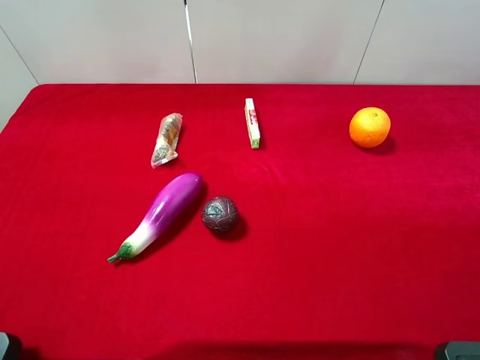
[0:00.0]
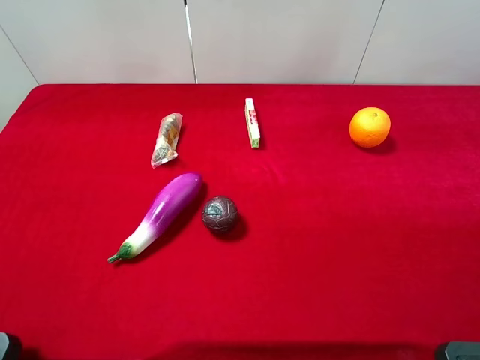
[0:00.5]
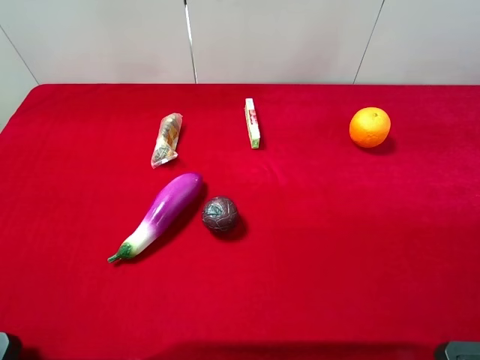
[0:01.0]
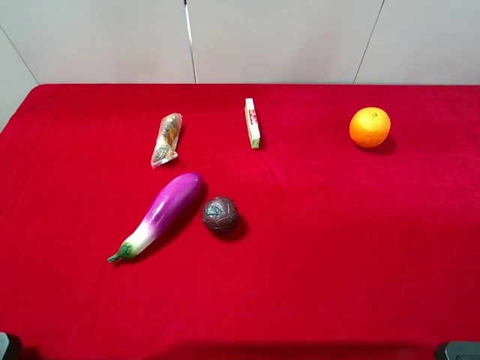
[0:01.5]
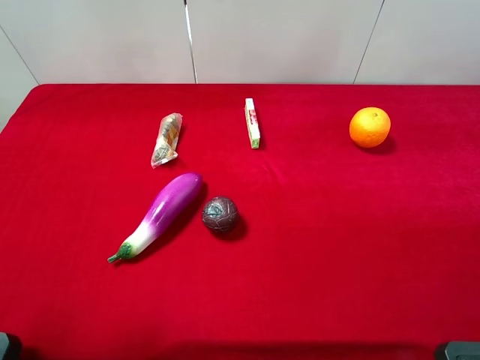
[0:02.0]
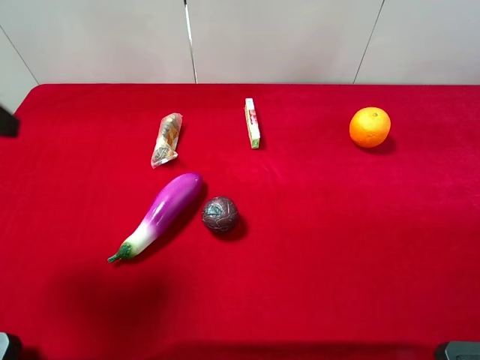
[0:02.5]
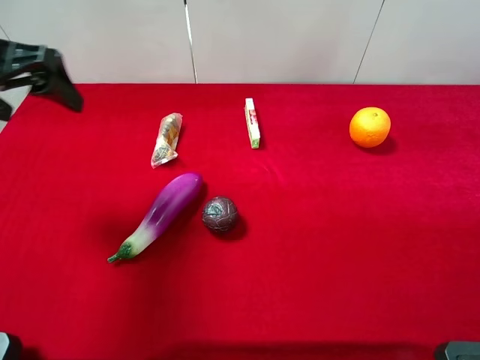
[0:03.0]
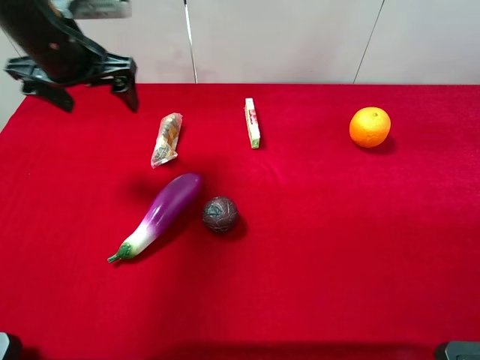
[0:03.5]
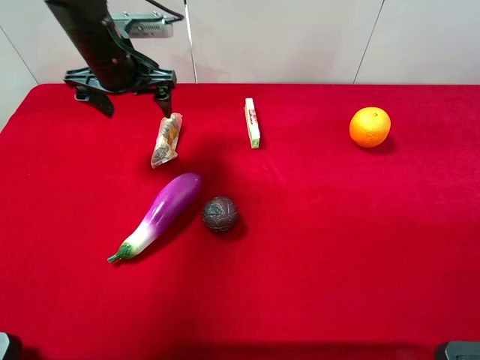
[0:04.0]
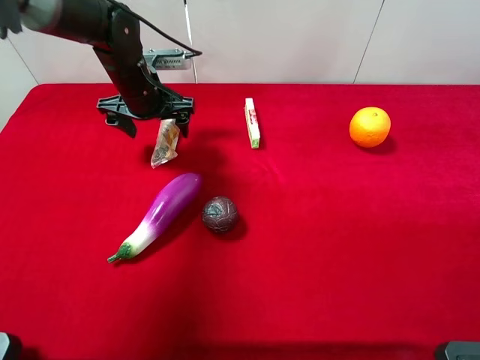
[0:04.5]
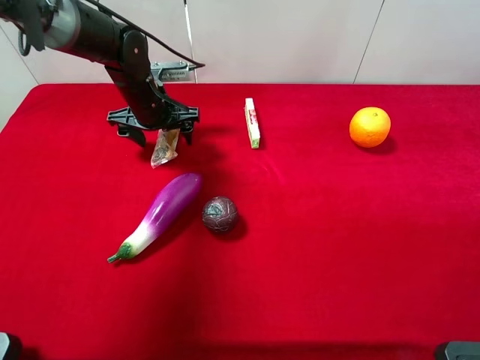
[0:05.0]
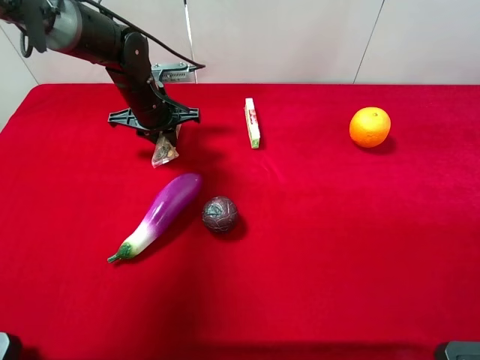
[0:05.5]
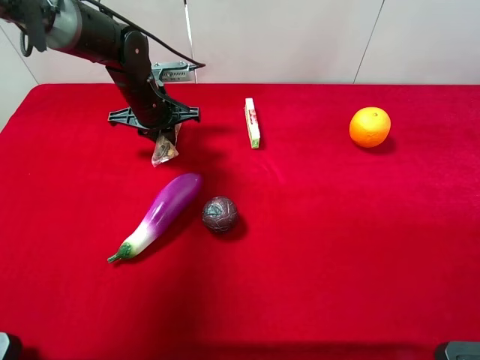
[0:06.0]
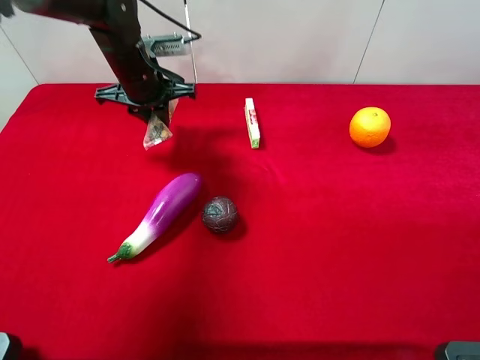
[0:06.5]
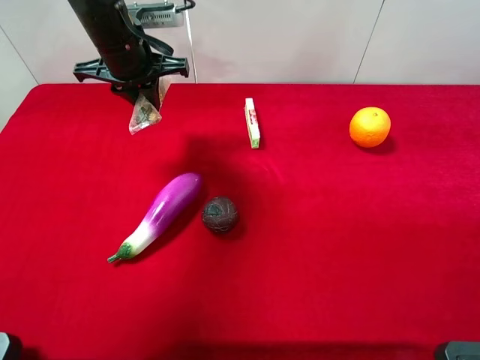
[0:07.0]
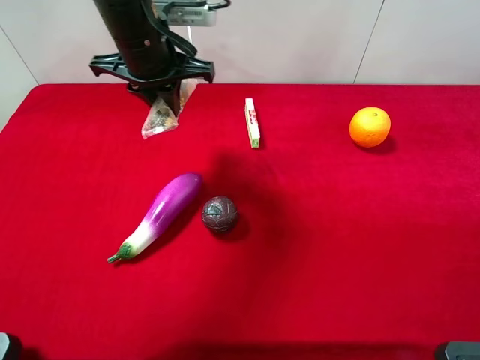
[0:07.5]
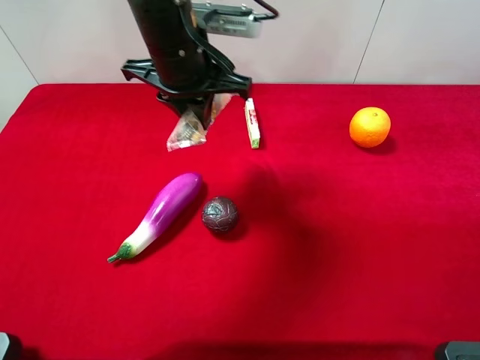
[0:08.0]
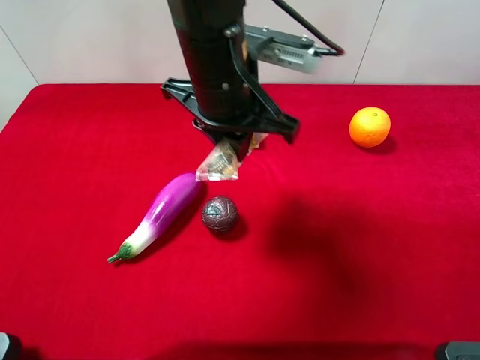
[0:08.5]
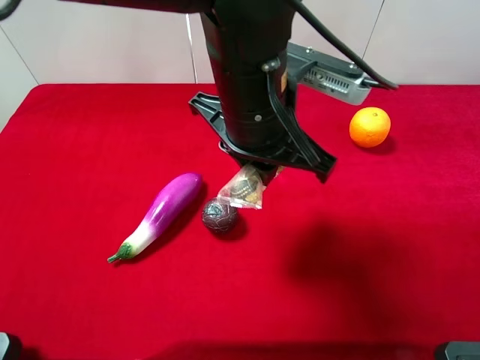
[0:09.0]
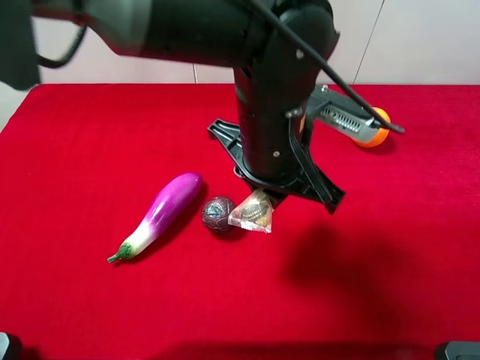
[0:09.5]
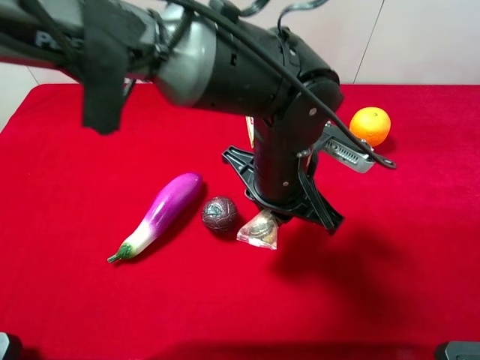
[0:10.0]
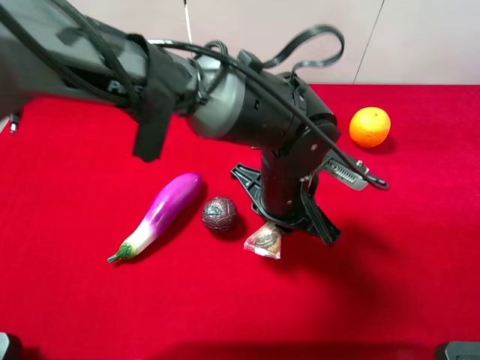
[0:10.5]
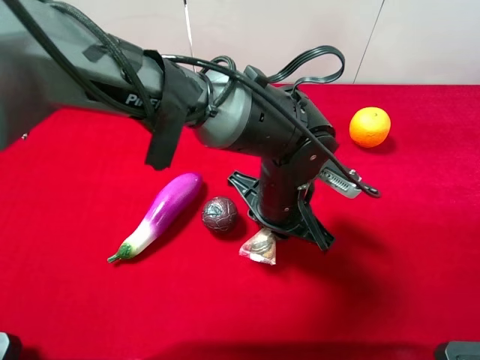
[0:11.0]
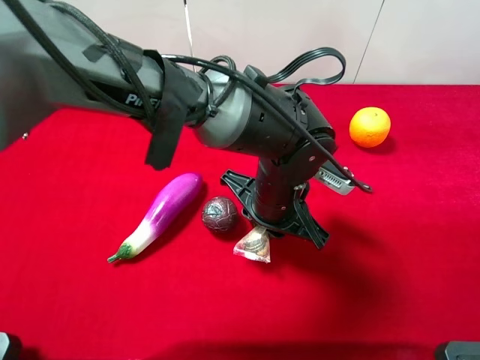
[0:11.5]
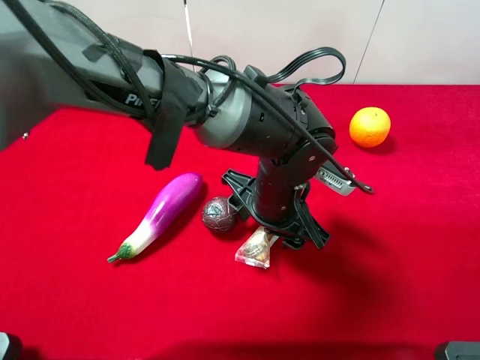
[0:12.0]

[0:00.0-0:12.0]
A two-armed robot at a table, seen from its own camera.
Task of the whole recording: the gripper move the object.
Step, 0.0 to 5.5 s: Grasp the chocolate with the left gripper.
2.0 to 4.0 s: The left gripper travels forward and to the right by some 35 cm.
4.0 to 6.0 s: The left gripper is displaced downward by roughly 10 cm, and closes up.
6.0 to 8.0 s: The left gripper shifts some 20 cm upward, backward and to the right.
8.0 to 10.0 s: The left gripper heads to the right, backward and downward, covering approximately 15 cm.
10.0 to 12.0 s: The left gripper is displaced downward by about 5 cm, and opens.

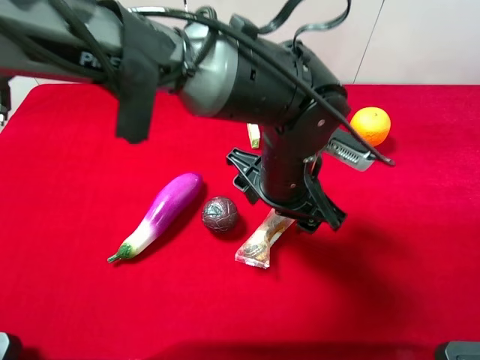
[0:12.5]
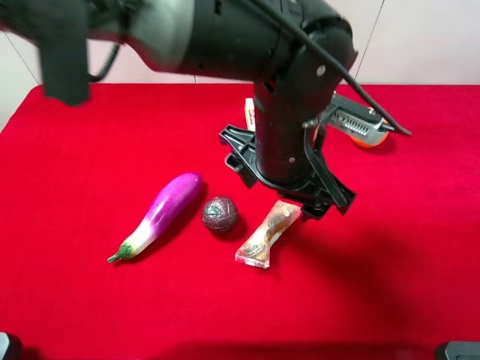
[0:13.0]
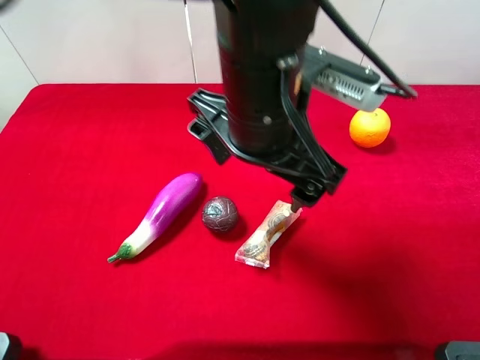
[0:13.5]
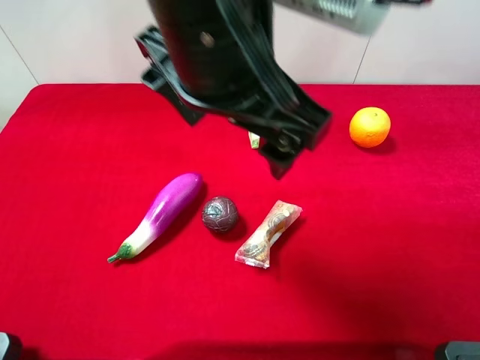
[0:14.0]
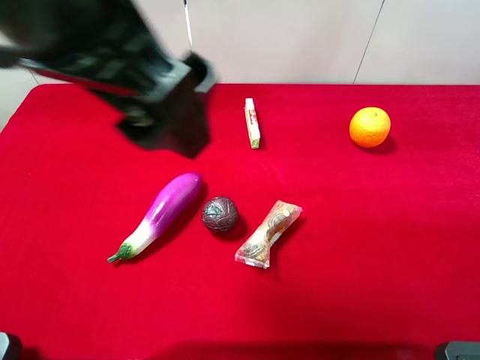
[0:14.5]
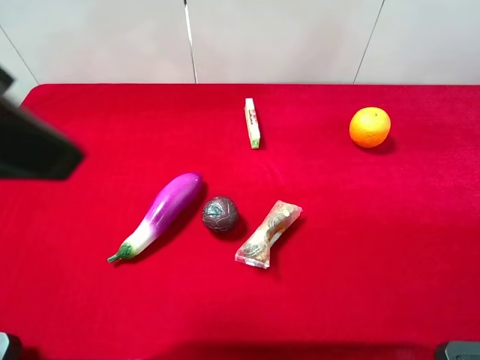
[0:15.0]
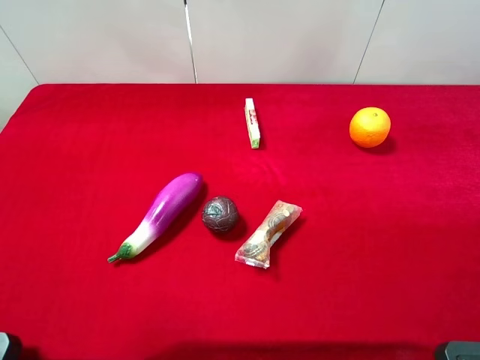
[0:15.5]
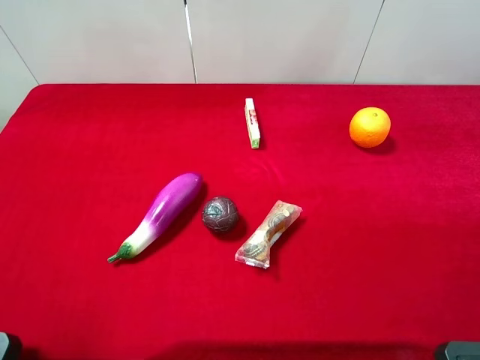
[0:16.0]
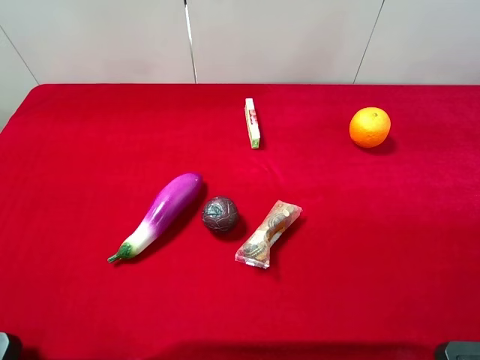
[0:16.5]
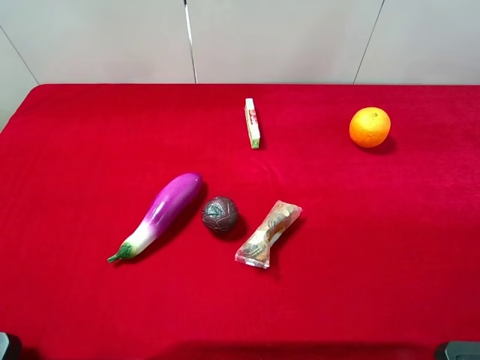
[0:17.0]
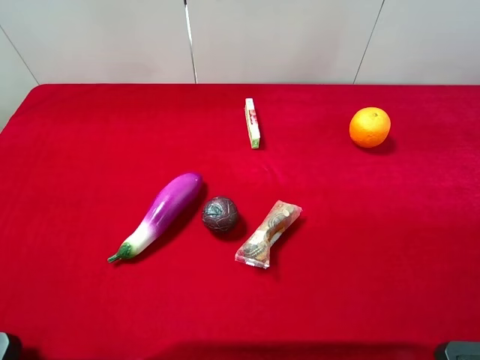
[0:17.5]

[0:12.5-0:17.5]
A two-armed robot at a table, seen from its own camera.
Task of the whole recording: the gripper move the object.
12.5 to 15.0 s: The left gripper is displaced to the left, upward and backward by roughly 35 cm.
15.0 to 17.5 s: The left gripper heads to the left, downward and backward, covering some 20 cm.

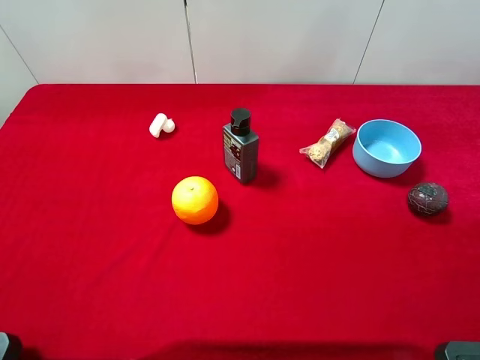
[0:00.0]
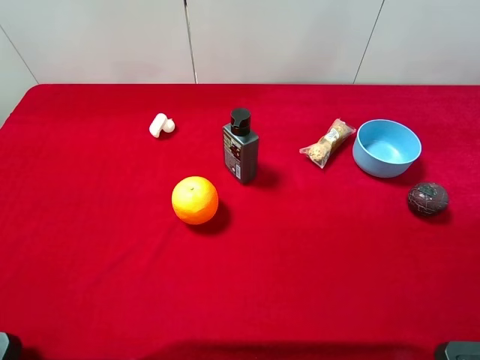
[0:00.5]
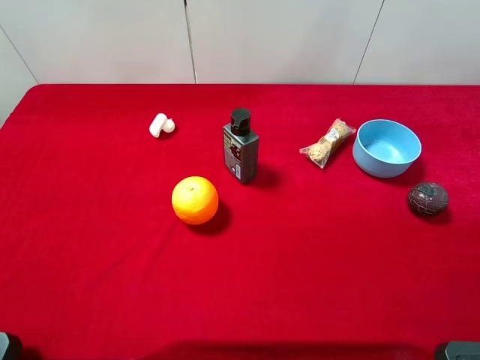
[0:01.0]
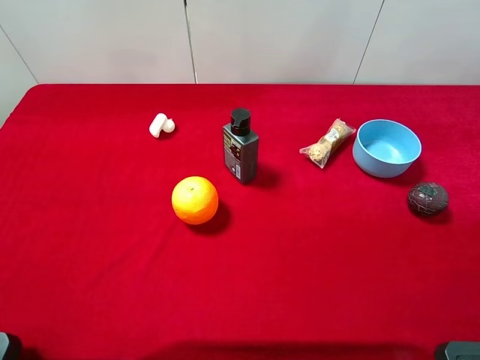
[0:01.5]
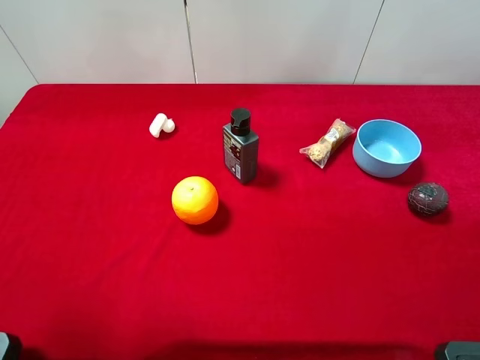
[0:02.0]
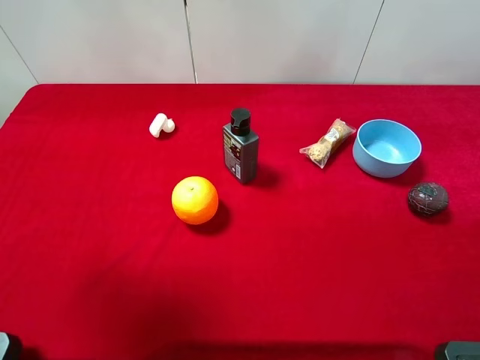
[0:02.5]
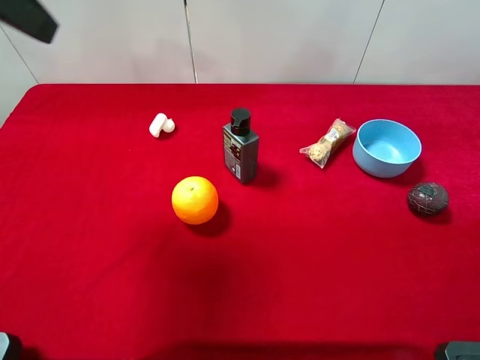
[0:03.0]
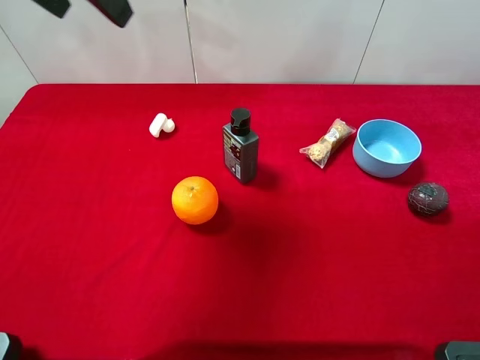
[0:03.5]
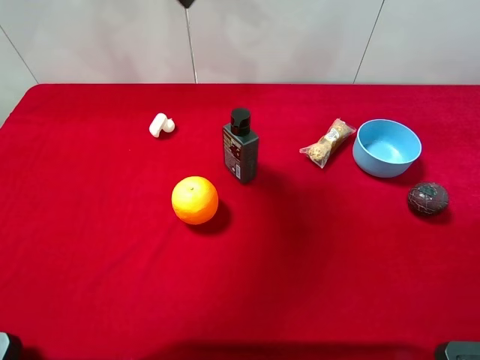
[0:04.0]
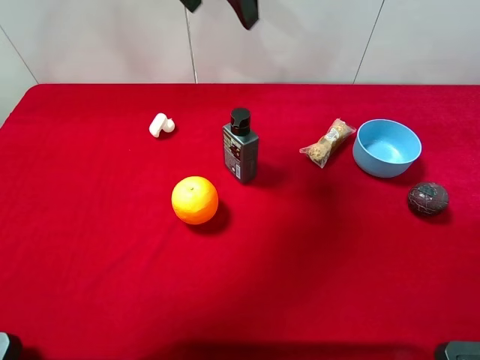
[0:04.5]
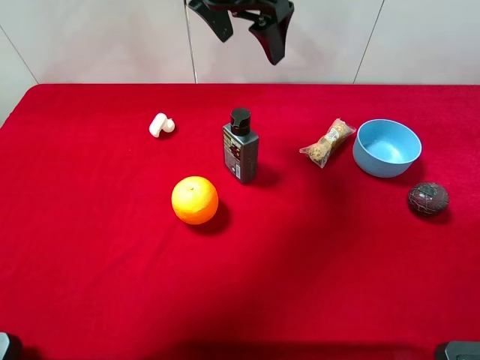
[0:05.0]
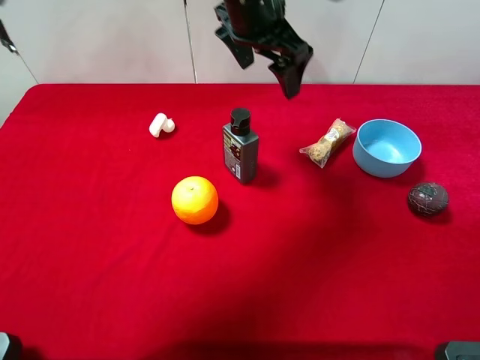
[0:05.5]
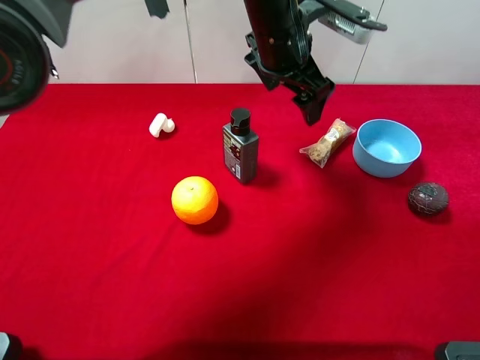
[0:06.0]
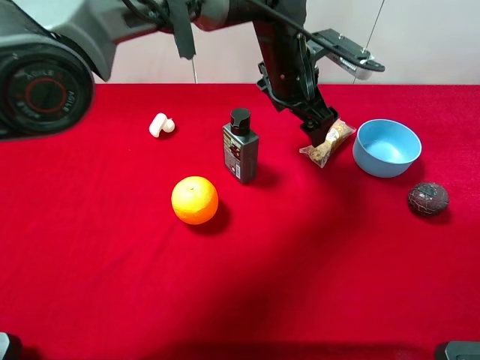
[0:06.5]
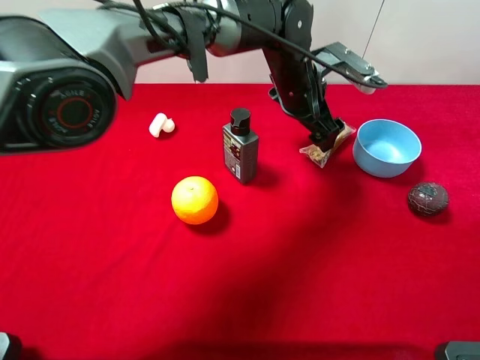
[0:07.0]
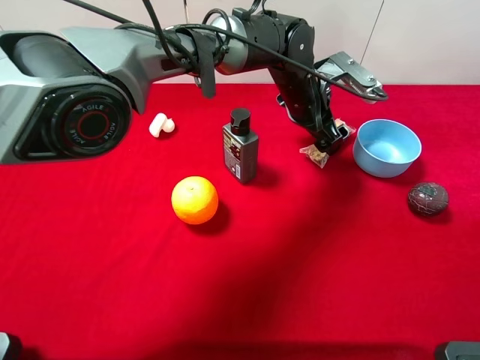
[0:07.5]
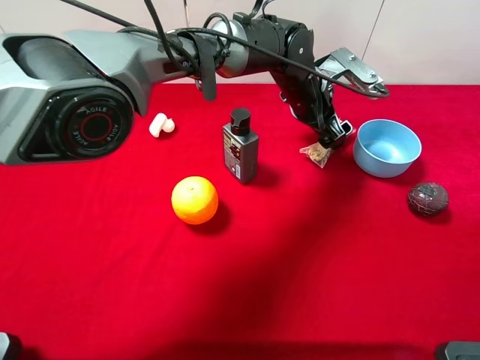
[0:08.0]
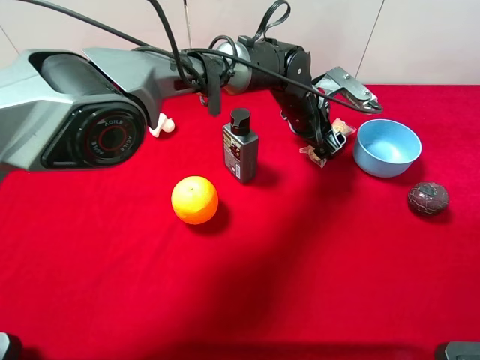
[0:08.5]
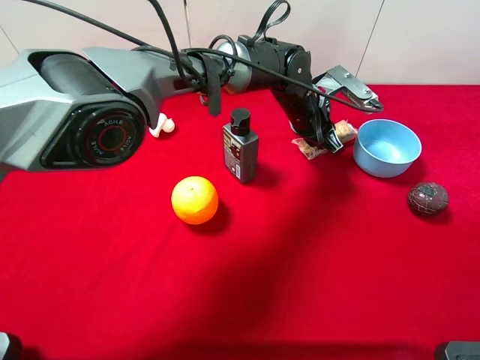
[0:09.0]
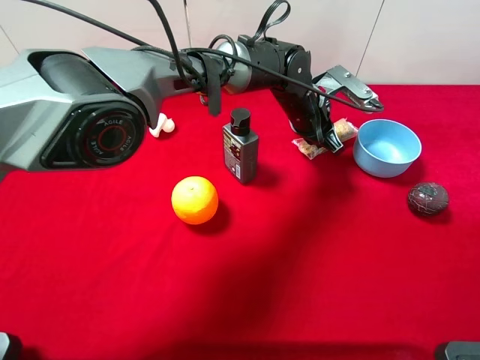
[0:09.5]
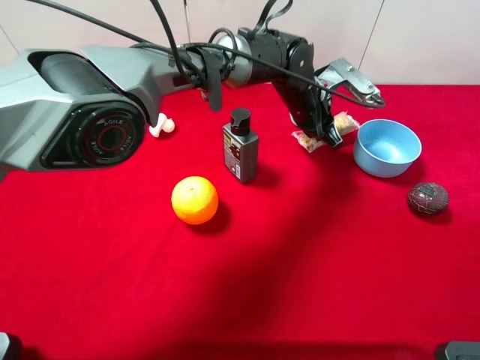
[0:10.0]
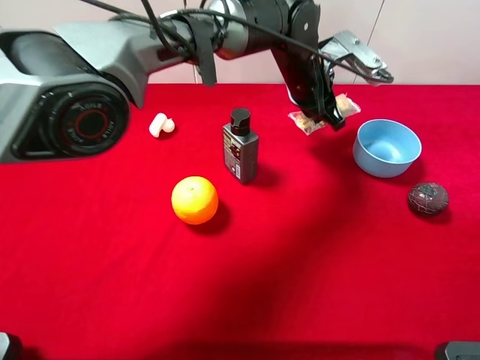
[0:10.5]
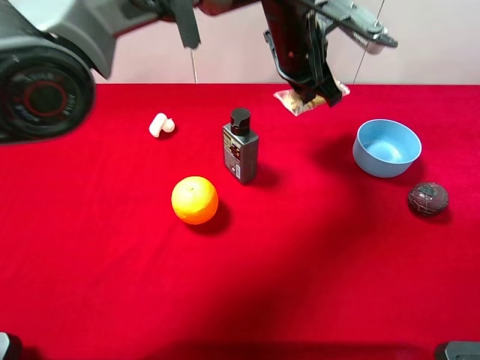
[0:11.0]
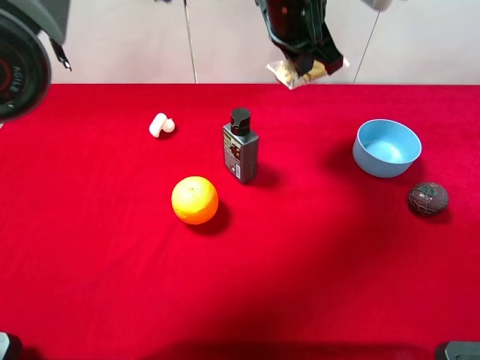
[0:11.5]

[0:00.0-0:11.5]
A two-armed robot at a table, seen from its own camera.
Task of the whole recording: the gripper move the object.
Step, 0.0 to 9.0 s: Grasp the chocolate with the left gripper.
2.0 to 4.0 s: The left gripper heads forward and to the right, covering some 30 cm.
4.0 to 6.0 s: The left gripper moves to the right and downward, about 25 cm.
6.0 to 7.5 s: The left gripper heads downward, covering about 10 cm.
7.5 to 9.5 s: The left gripper closes.
9.5 to 11.5 s: The left gripper is displaced upward by roughly 20 cm.
